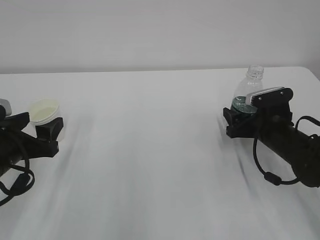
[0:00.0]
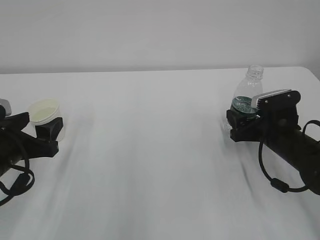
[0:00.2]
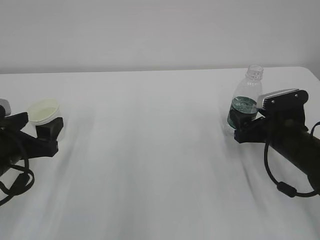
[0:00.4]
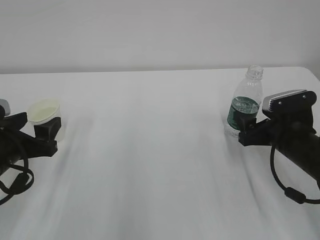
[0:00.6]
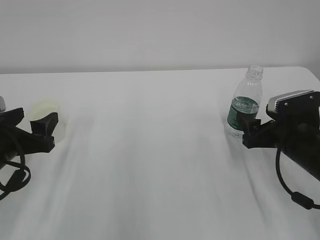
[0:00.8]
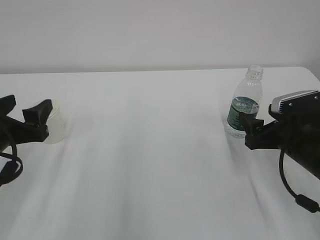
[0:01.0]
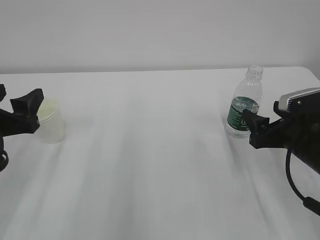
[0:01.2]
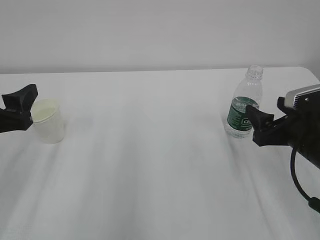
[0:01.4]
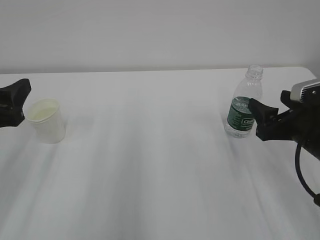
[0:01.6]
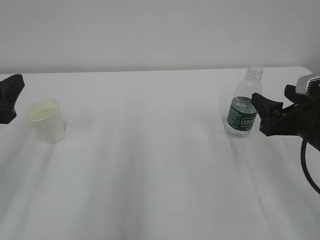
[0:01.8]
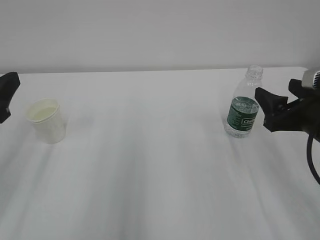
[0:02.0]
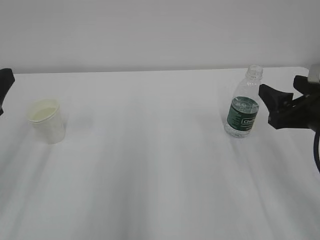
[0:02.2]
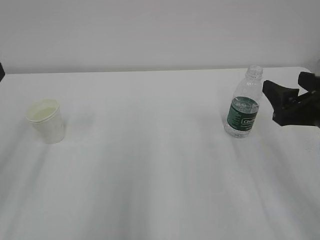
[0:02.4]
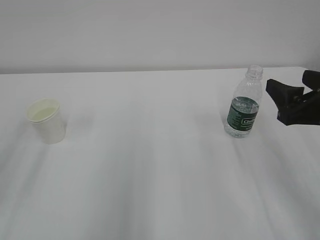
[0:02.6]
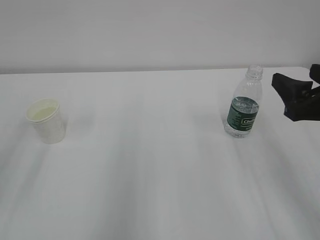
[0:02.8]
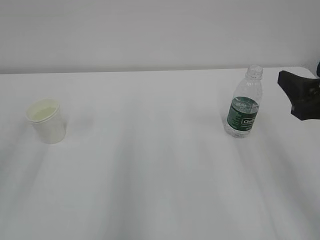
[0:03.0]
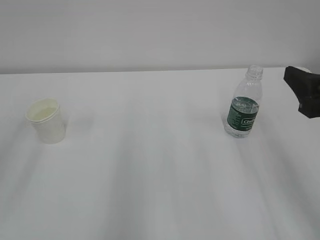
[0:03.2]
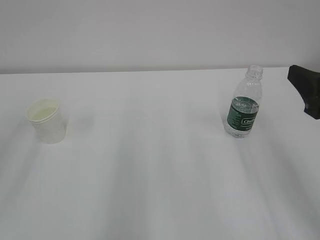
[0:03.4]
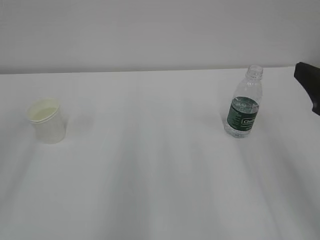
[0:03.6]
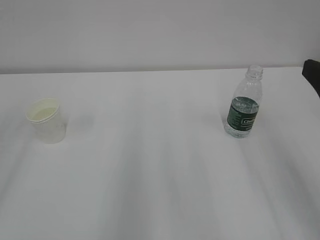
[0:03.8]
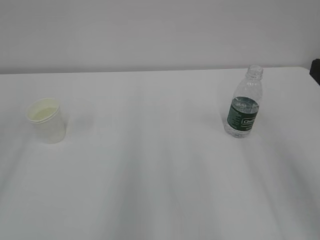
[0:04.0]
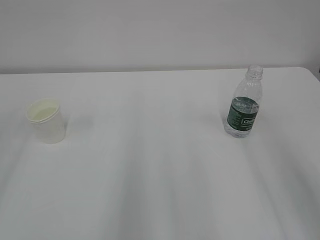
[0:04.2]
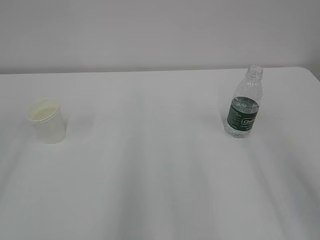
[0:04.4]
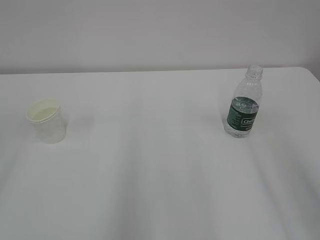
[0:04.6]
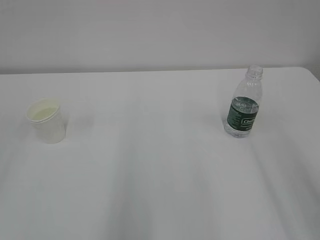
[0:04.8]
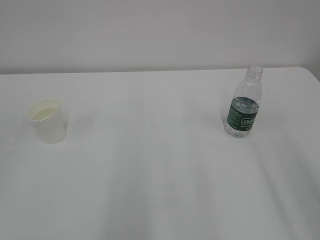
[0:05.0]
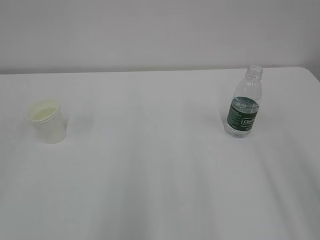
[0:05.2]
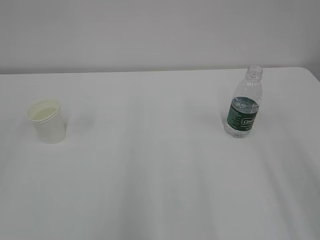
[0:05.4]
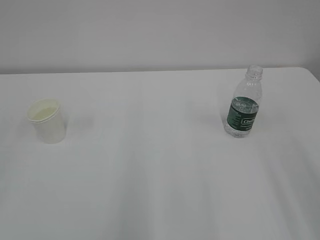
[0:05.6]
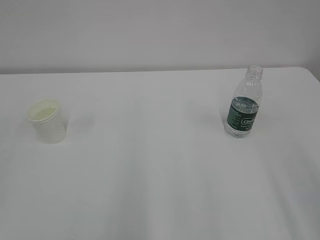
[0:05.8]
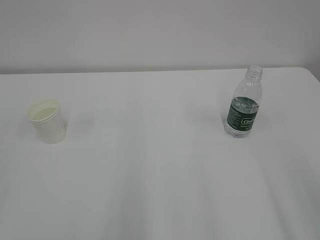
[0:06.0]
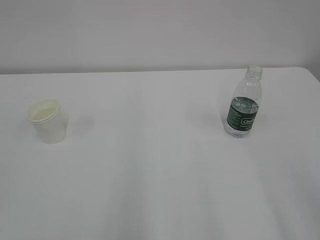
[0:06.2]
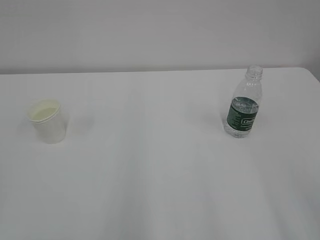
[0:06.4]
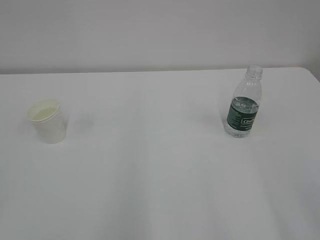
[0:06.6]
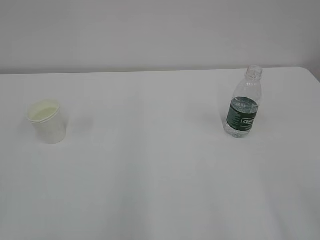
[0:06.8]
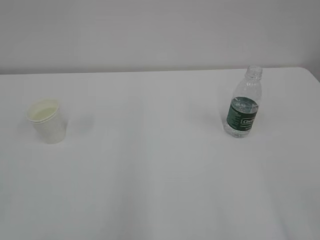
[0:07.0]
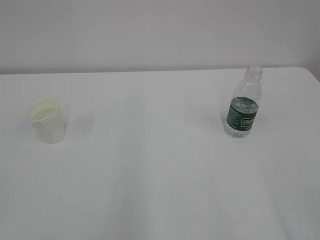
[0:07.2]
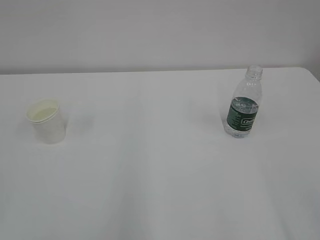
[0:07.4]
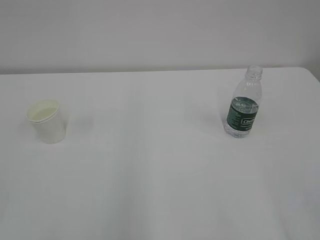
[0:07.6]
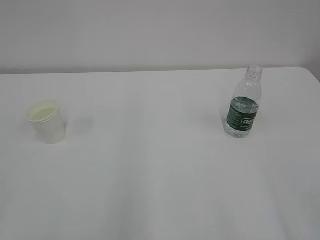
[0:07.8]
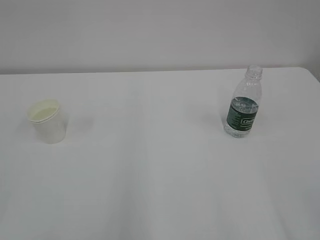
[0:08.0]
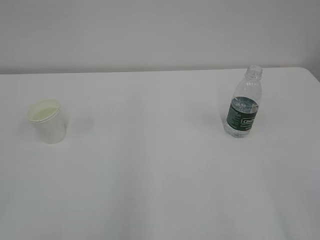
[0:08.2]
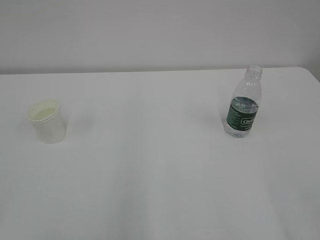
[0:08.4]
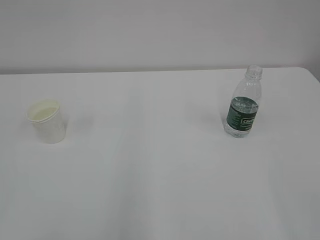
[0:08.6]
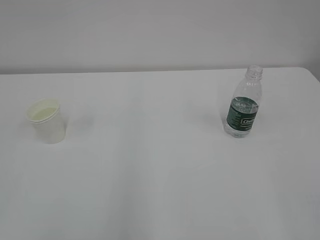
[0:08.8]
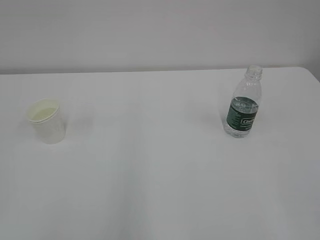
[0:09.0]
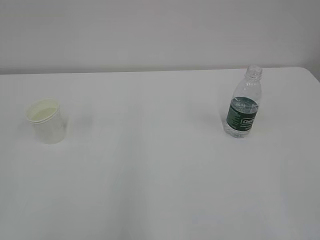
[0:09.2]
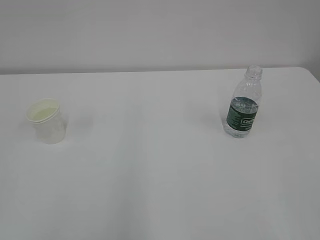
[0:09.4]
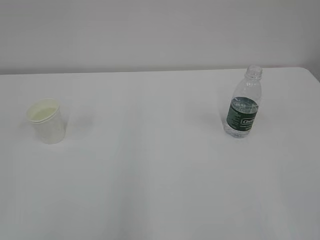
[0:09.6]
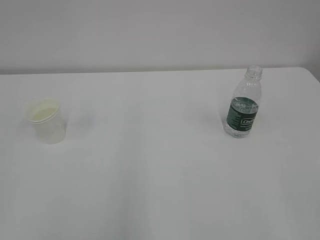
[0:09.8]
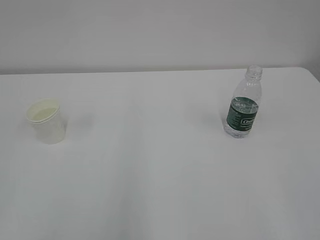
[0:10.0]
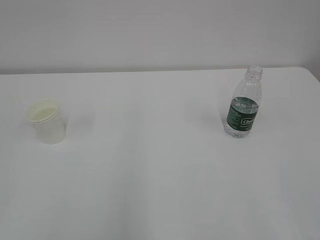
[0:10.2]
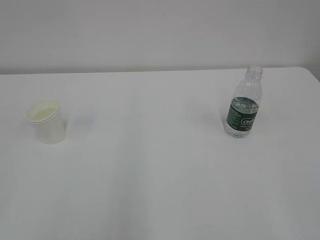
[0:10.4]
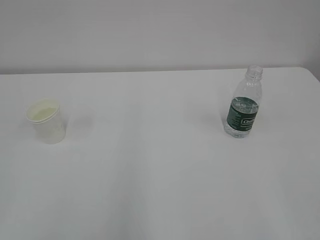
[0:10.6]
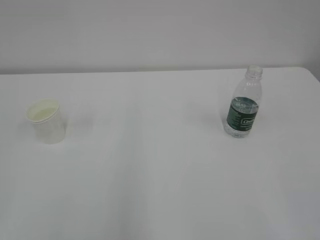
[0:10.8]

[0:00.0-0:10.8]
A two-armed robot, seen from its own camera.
0:00.0 to 0:01.6: The left gripper is displaced upward by approximately 10 cm. The right gripper moves backward and upward, approximately 10 cm.
0:01.6 to 0:03.0: The left gripper goes roughly 10 cm upward and backward. Meanwhile the right gripper goes roughly 10 cm upward.
0:03.0 to 0:04.6: The right gripper heads backward and upward, covering some 10 cm.
0:09.2 to 0:10.8: Both grippers stay about where they are.
